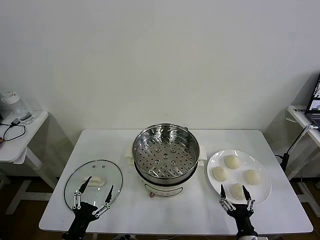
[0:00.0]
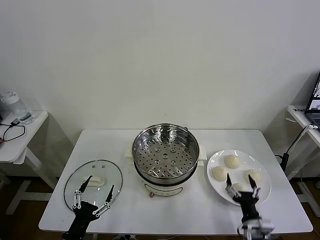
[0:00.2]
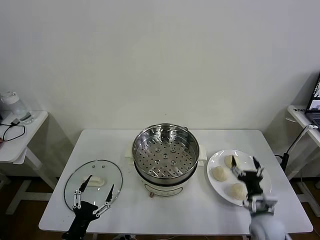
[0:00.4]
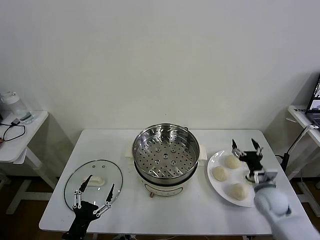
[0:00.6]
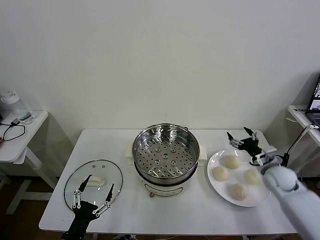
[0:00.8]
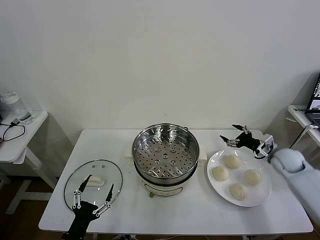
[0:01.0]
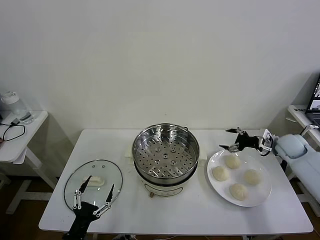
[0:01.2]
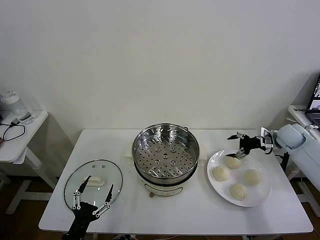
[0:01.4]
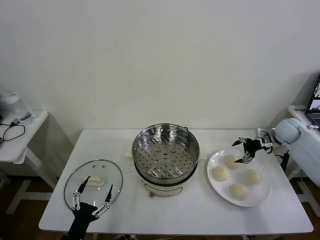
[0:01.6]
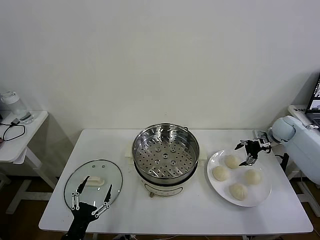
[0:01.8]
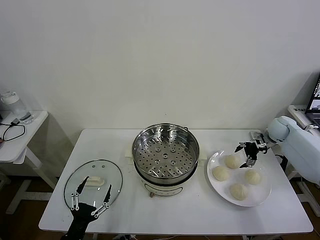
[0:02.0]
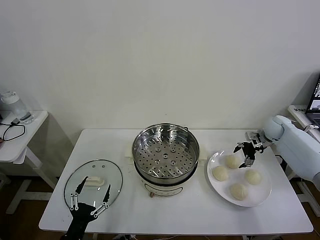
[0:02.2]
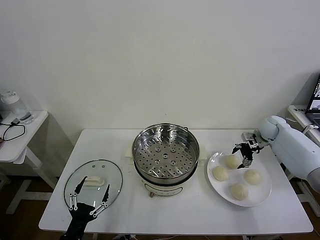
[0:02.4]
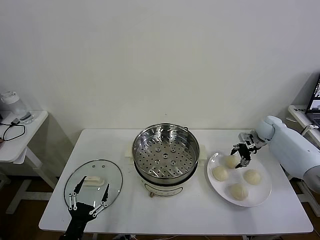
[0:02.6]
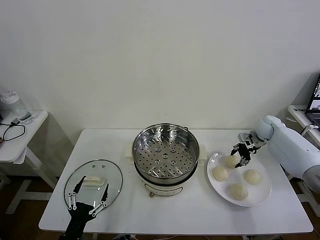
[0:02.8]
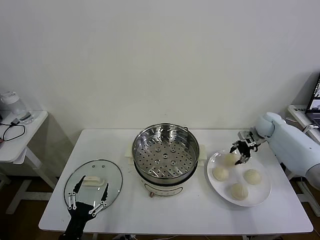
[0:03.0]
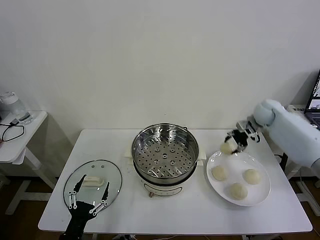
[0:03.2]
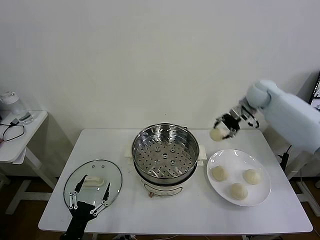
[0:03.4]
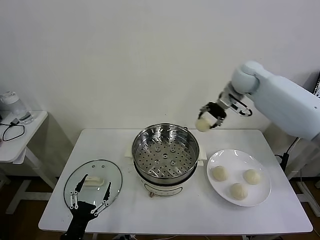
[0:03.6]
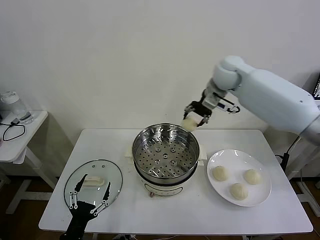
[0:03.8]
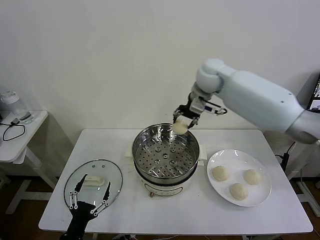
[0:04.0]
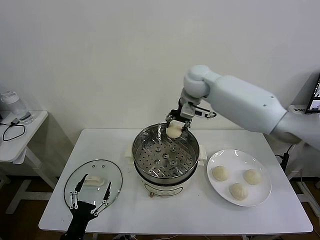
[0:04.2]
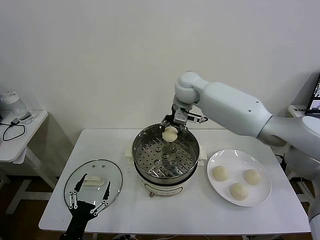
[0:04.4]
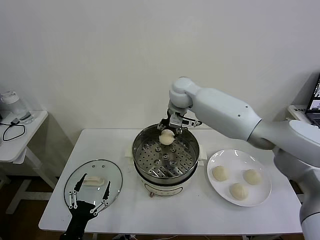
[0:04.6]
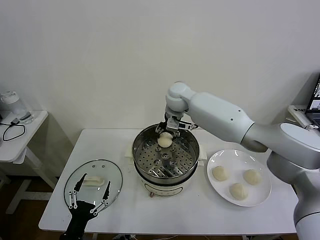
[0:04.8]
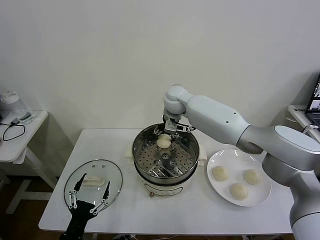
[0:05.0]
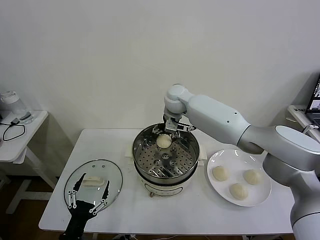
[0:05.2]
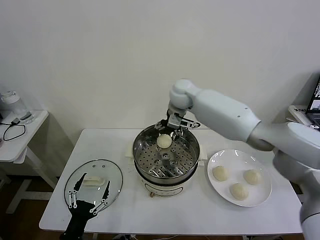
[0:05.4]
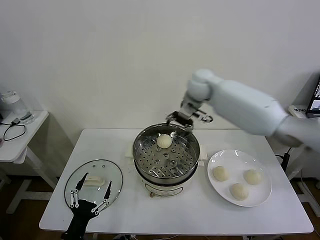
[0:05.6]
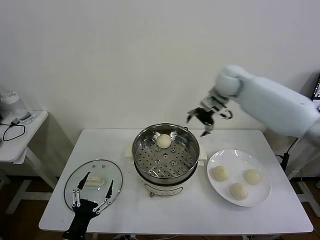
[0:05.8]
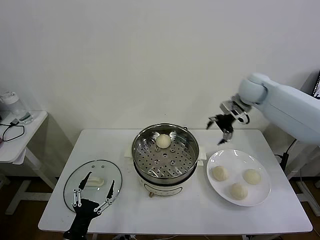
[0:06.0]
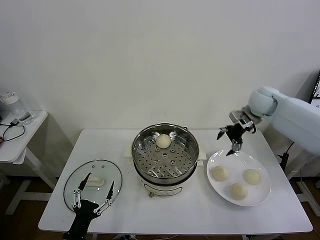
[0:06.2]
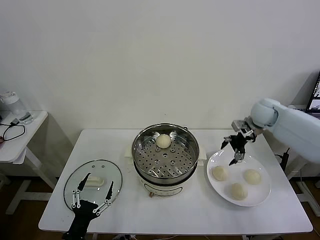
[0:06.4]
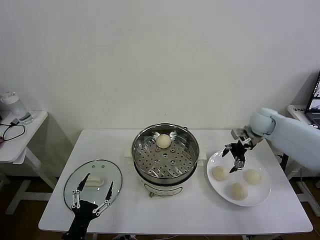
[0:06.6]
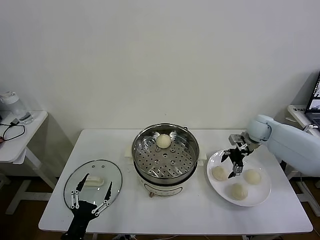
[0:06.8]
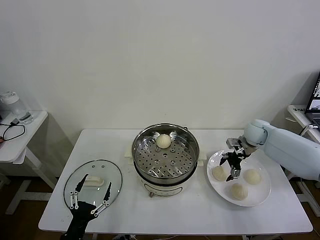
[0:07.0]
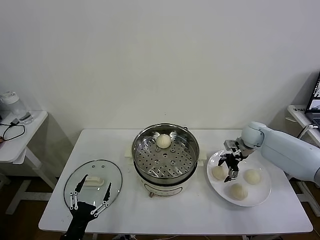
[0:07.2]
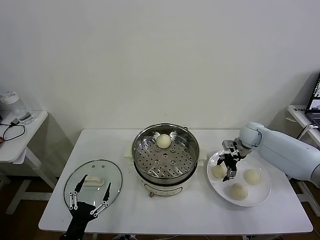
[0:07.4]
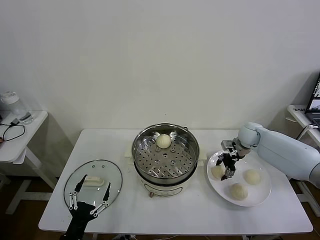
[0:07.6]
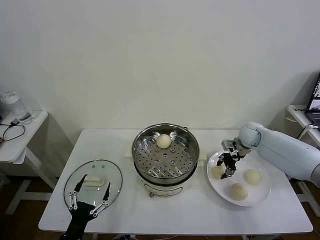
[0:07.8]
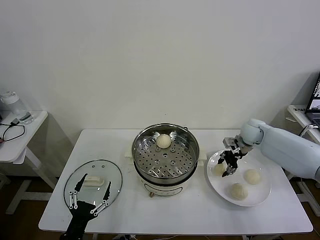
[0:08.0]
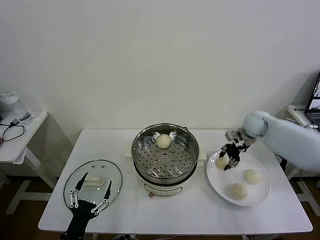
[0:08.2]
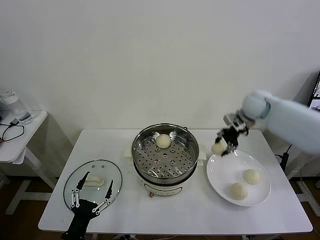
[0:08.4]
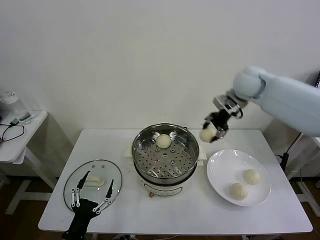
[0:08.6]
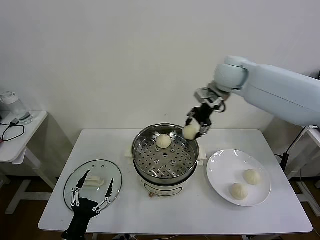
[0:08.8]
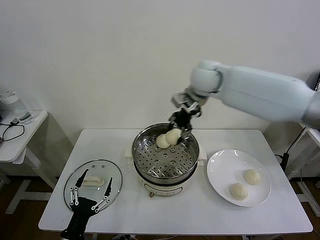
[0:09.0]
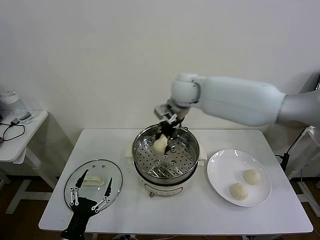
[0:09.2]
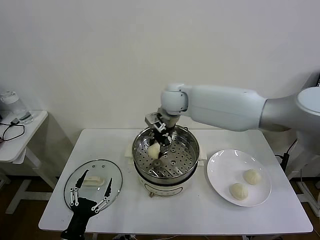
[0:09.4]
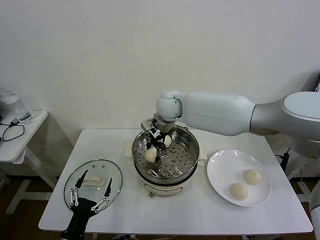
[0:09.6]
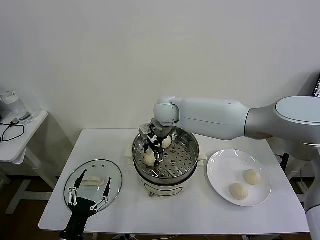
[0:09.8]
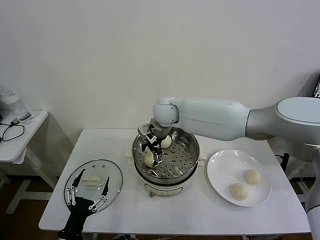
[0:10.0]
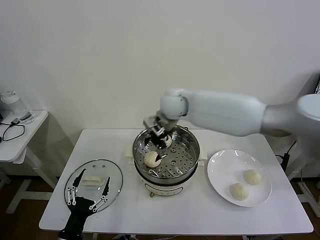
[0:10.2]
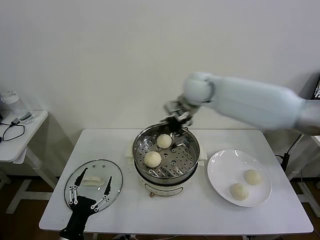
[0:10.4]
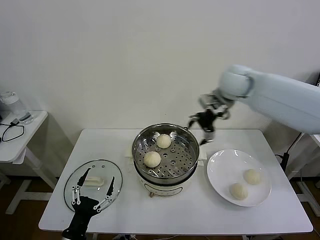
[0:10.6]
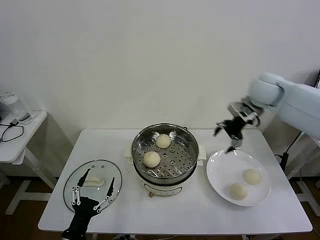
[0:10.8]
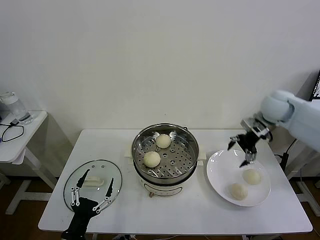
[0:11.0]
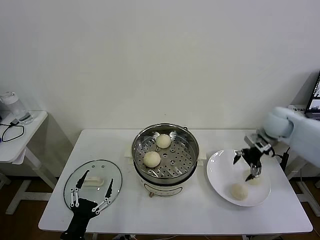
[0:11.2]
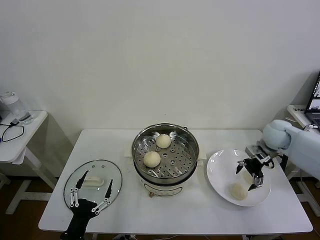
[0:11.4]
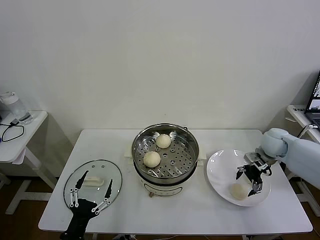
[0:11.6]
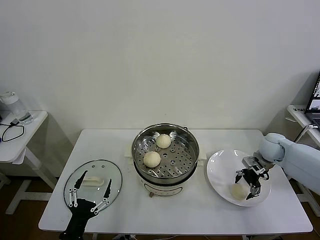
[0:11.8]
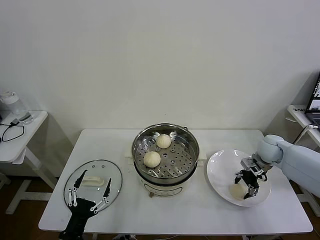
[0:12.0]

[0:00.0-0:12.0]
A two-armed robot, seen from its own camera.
Task of the whole recording: take steamed baozi put them in steamer then cover it.
Step, 0:00.0 to 0:02.8: Grasp the baozi in the plate with right gripper.
Step, 0:03.0 to 0:05.2: Place the baozi on the steamer with right gripper.
Step, 0:05.6 to 0:07.8: Grasp the baozi in the plate with right gripper.
Step, 0:08.0 to 0:09.8: Place the baozi on the steamer with right gripper.
0:01.6 to 0:03.0: The right gripper travels to the left by approximately 5 cm, and closes.
0:03.0 to 0:04.4: The right gripper heads to the left, covering approximately 35 cm.
0:04.4 to 0:06.0: The right gripper is displaced to the right by roughly 25 cm, and opens up.
0:06.0 to 0:07.6: The right gripper is displaced downward by roughly 20 cm, and closes.
0:07.6 to 0:09.0: The right gripper travels to the left and upward by about 35 cm.
0:09.0 to 0:10.4: The right gripper reaches roughly 10 cm to the left, then returns, and opens its fingers.
0:10.4 to 0:12.0: The right gripper heads to the right and downward, covering about 35 cm, and closes its fingers.

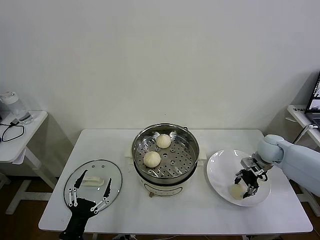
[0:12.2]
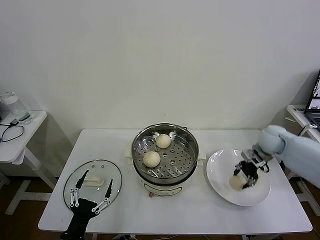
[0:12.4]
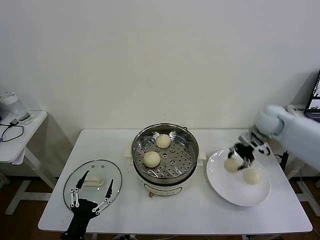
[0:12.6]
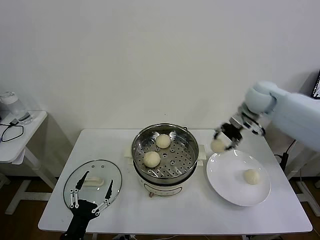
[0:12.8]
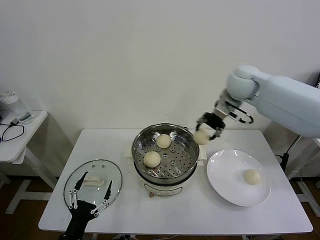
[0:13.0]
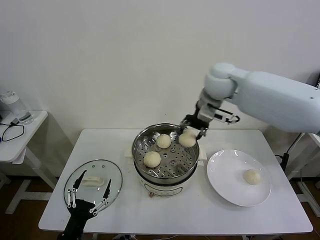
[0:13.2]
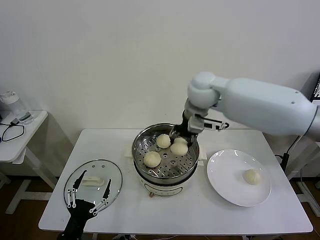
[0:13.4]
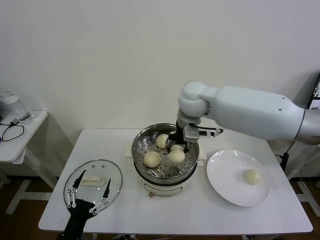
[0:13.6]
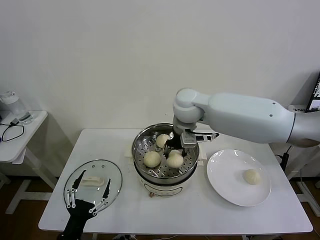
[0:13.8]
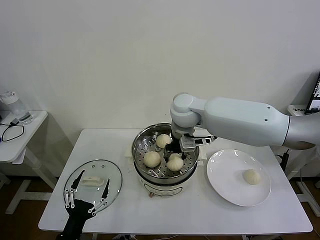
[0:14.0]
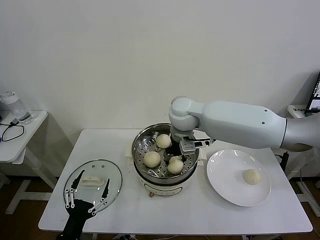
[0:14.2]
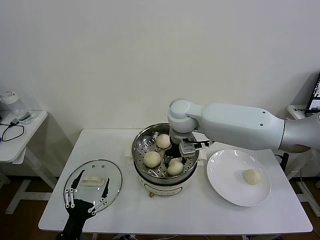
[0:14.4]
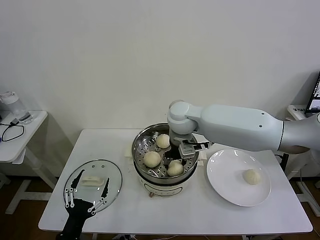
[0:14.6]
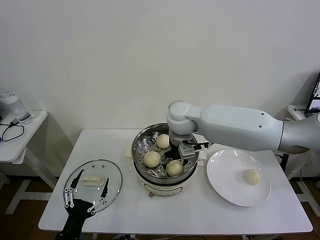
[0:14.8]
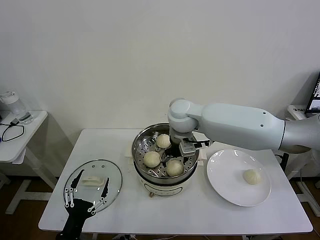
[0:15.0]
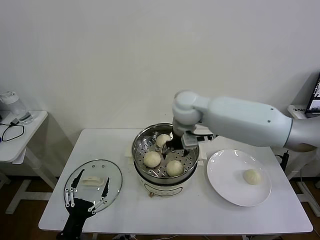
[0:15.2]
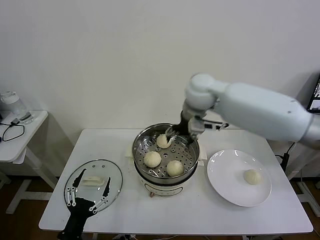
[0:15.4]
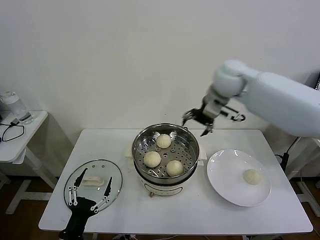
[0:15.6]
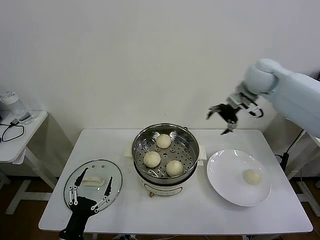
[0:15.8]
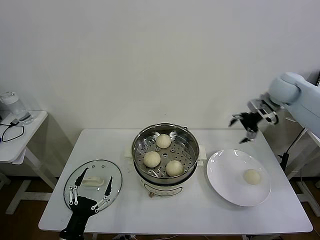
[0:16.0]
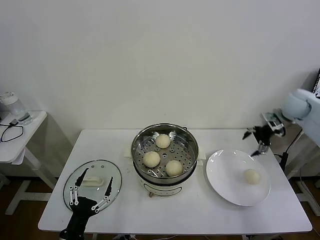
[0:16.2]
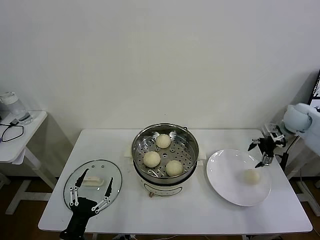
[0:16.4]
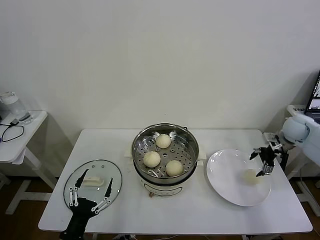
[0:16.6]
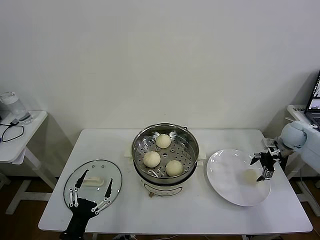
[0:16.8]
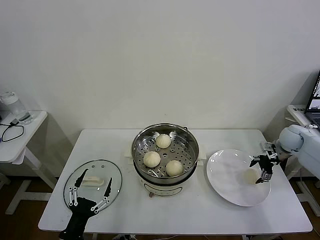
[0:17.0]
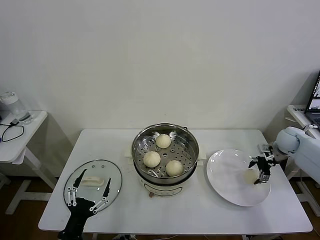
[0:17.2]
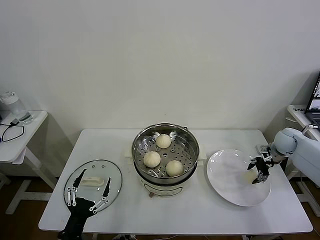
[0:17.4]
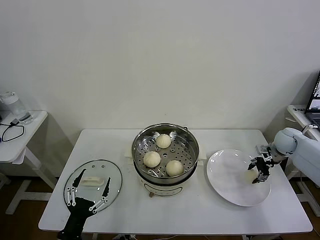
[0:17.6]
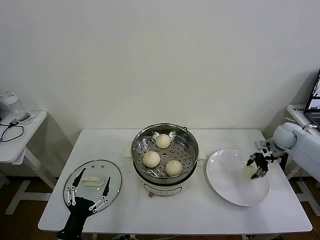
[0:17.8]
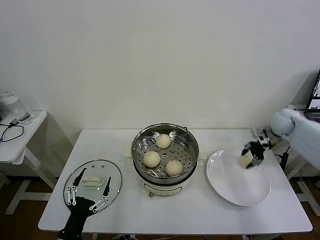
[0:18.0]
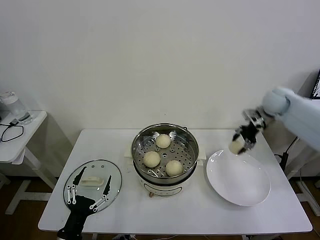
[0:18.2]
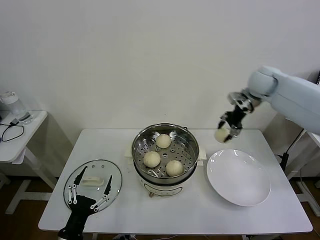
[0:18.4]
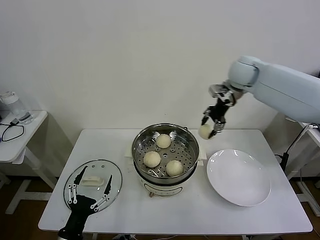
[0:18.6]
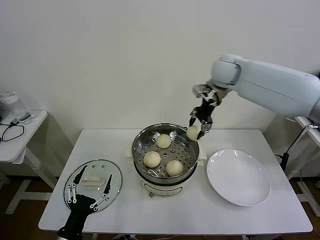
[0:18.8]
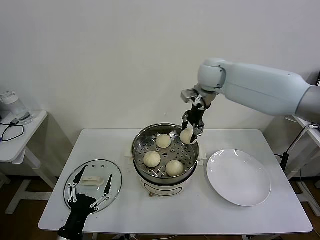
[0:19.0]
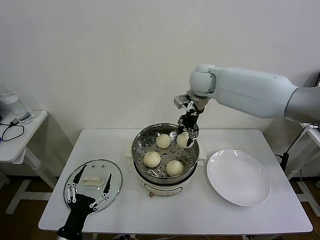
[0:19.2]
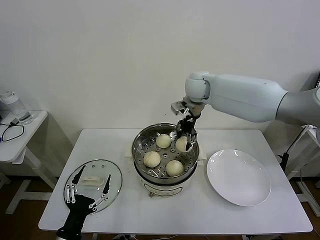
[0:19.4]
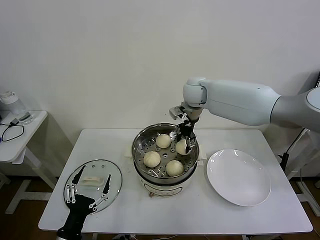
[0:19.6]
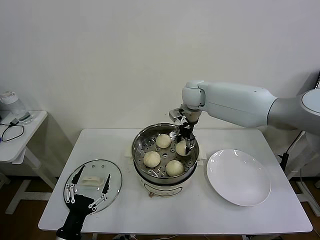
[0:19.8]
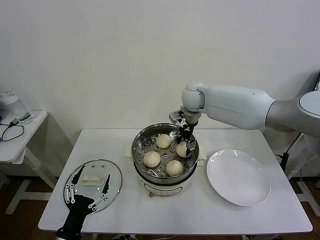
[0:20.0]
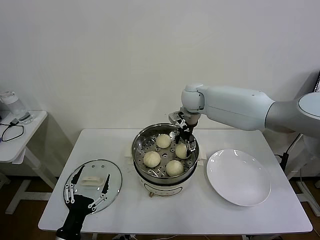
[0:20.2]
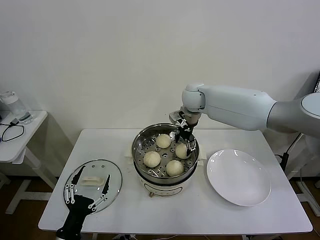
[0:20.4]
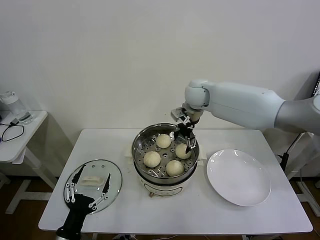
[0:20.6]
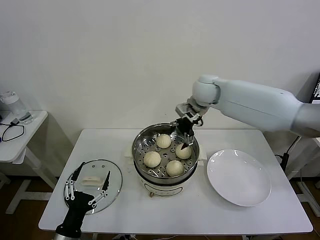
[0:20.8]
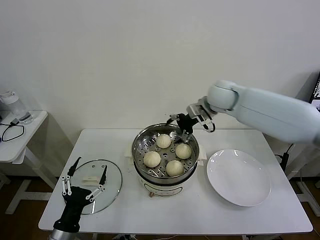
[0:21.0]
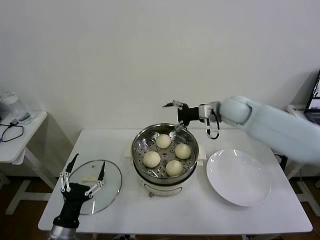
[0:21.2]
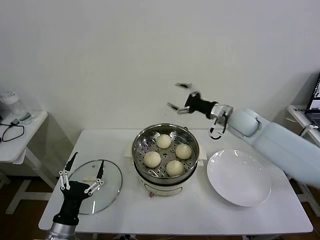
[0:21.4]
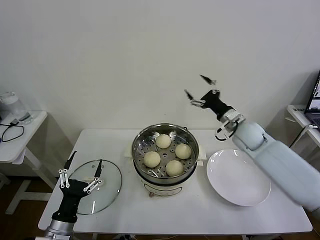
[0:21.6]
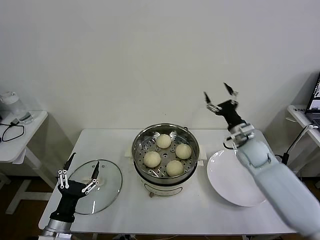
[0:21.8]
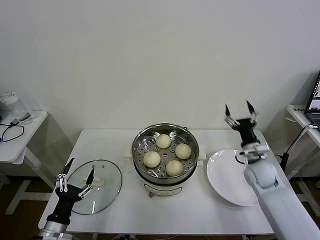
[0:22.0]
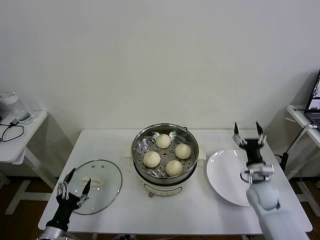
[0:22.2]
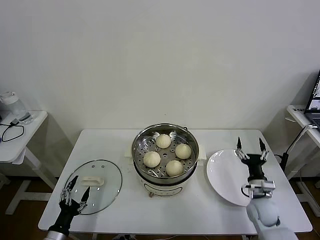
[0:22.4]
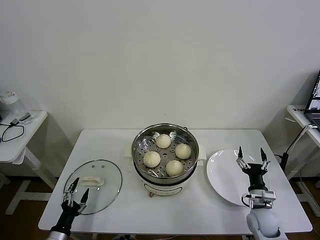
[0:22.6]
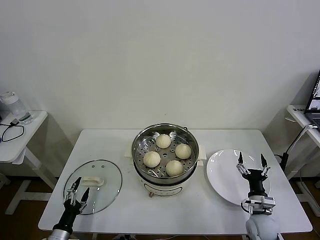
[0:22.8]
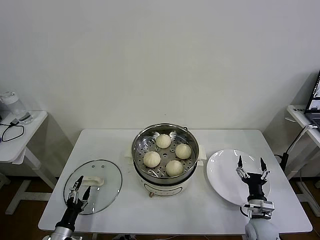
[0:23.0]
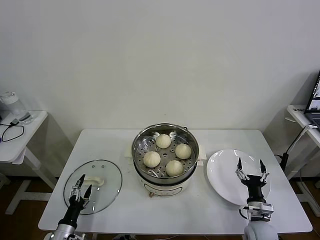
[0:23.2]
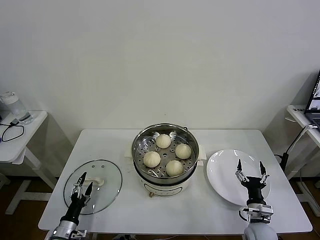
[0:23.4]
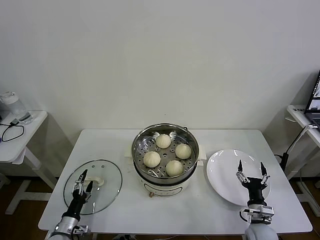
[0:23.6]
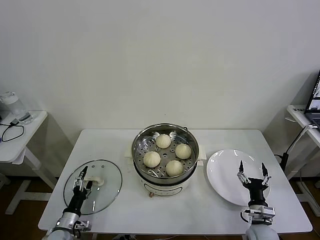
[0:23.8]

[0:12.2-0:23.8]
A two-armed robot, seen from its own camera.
Task of the whole recording: take steamed baozi put them in steamer then cover it.
Step, 0:12.4 to 0:15.0: Place the baozi on the steamer with right gripper.
Step, 0:15.2 to 0:17.6: Grasp the baozi in the plate with right gripper.
Step, 0:17.8 to 0:20.4: Place the baozi on the steamer with right gripper.
0:12.2 to 0:13.6: The right gripper moves to the left and upward, some 35 cm.
0:13.6 to 0:15.0: The right gripper opens its fingers.
0:15.0 to 0:16.6: The right gripper heads to the right, covering approximately 40 cm.
0:16.6 to 0:18.0: The right gripper travels downward and back again, about 5 cm each way, and closes its fingers.
0:18.0 to 0:19.4: The right gripper goes about 35 cm to the left.
0:19.4 to 0:21.0: The right gripper shifts approximately 5 cm to the right, and opens.
0:21.0 to 0:22.4: The right gripper moves downward, backward and to the right, roughly 40 cm. The left gripper shifts some 10 cm downward and to the left.
0:22.4 to 0:23.8: The right gripper travels backward and downward by roughly 10 cm; the left gripper shifts some 10 cm forward and downward.
